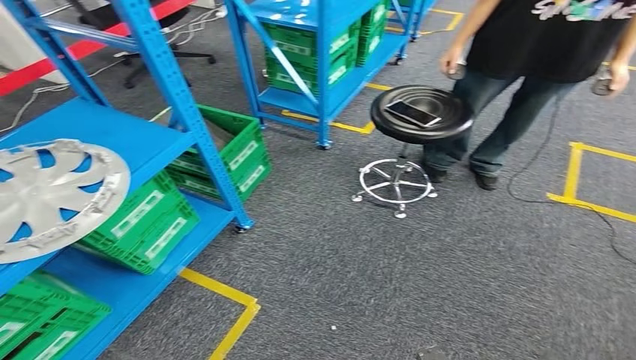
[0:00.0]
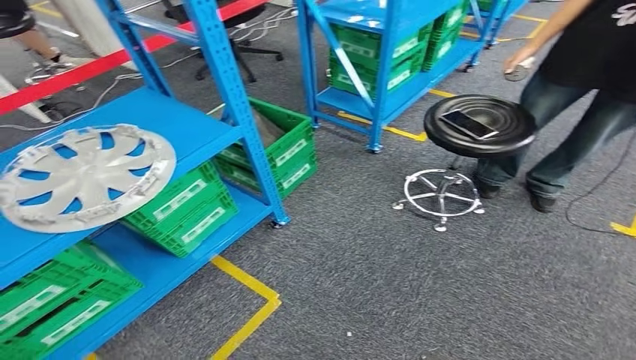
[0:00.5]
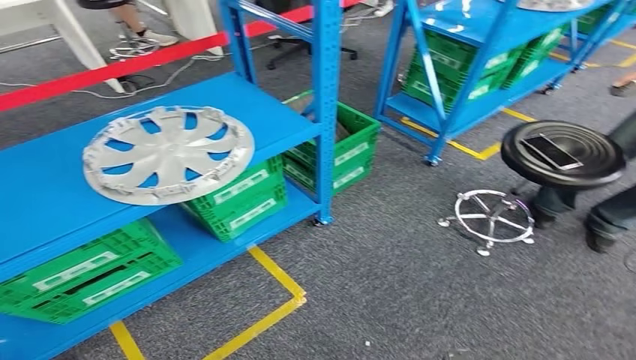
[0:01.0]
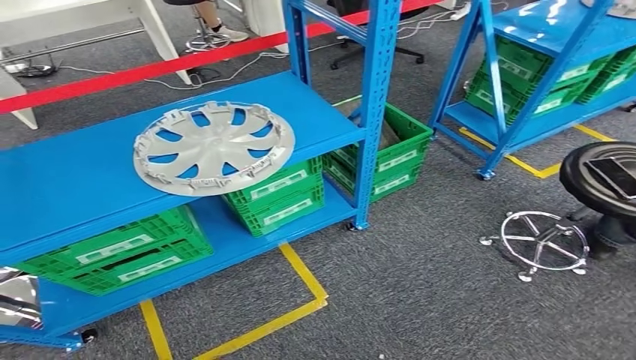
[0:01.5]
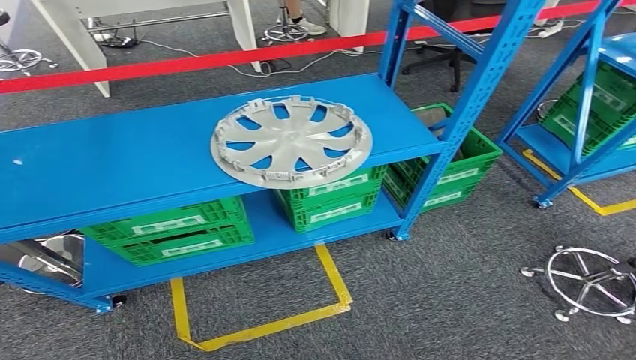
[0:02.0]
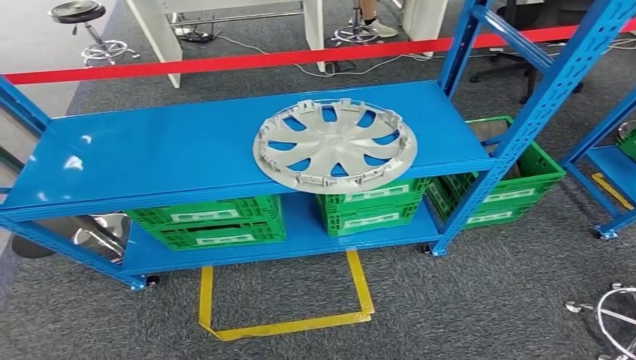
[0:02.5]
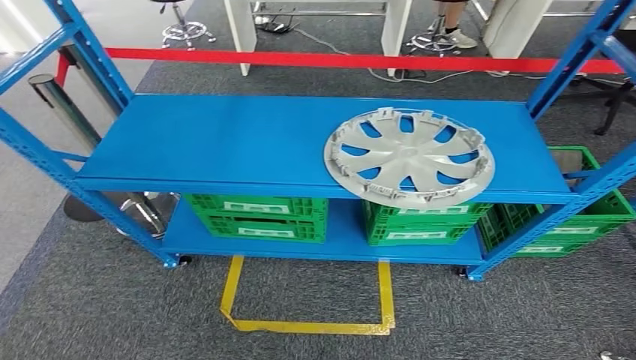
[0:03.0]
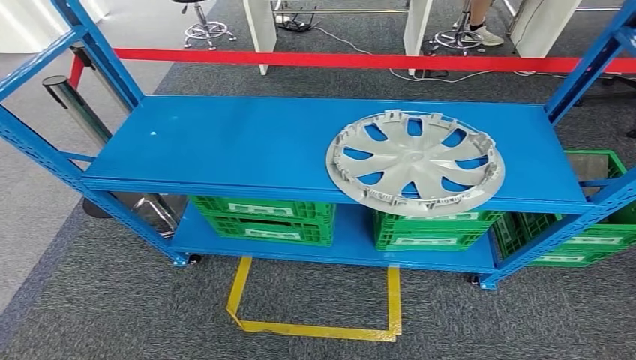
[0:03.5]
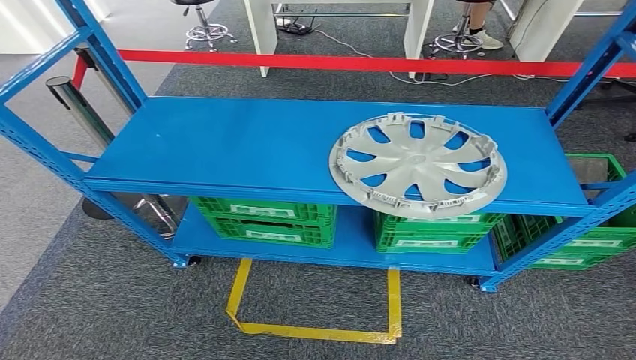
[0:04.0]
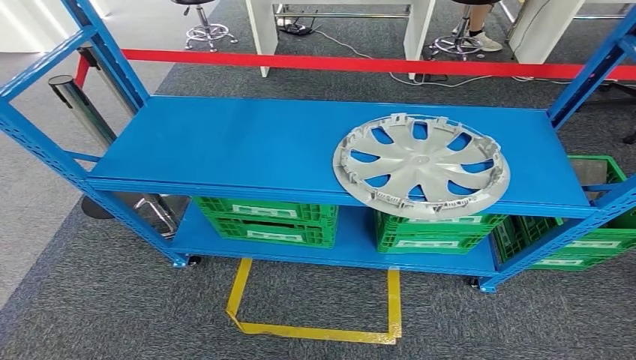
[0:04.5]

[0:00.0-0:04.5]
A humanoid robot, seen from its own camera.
Step, 0:00.0 to 0:04.5: Move to the initial position at the workbench.

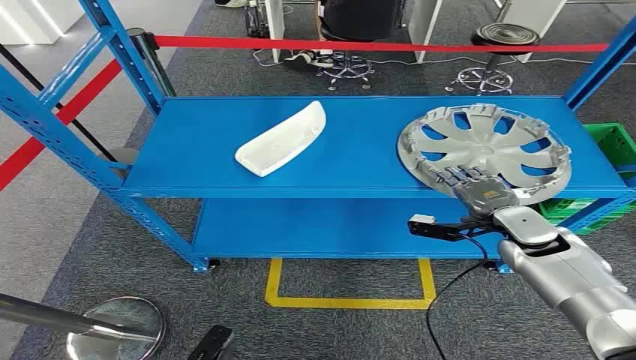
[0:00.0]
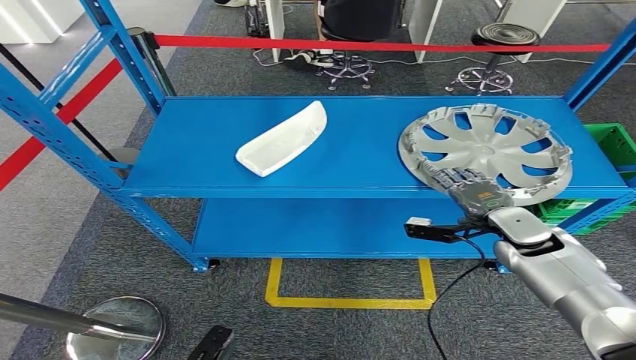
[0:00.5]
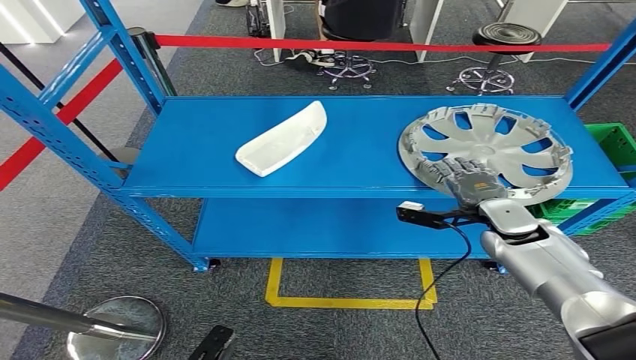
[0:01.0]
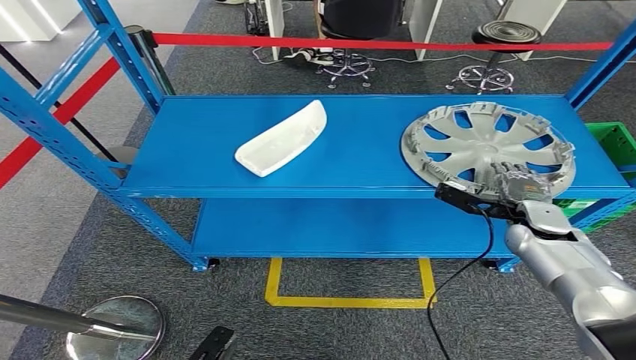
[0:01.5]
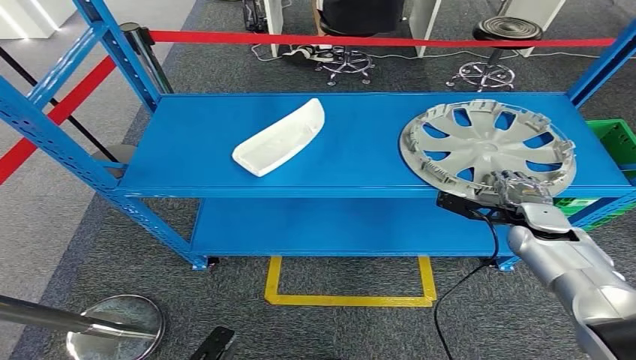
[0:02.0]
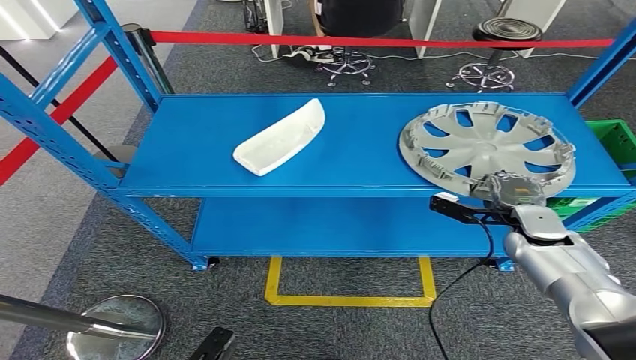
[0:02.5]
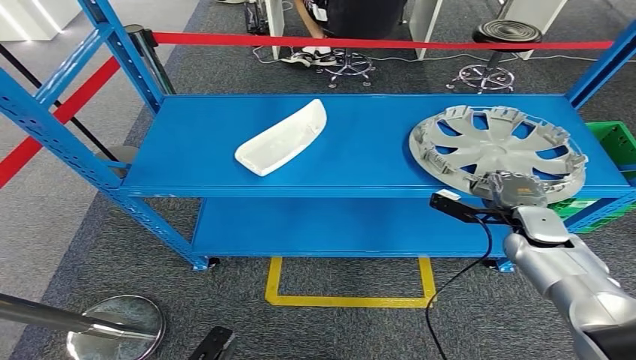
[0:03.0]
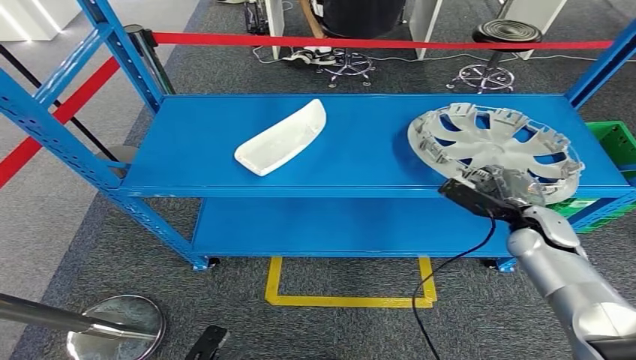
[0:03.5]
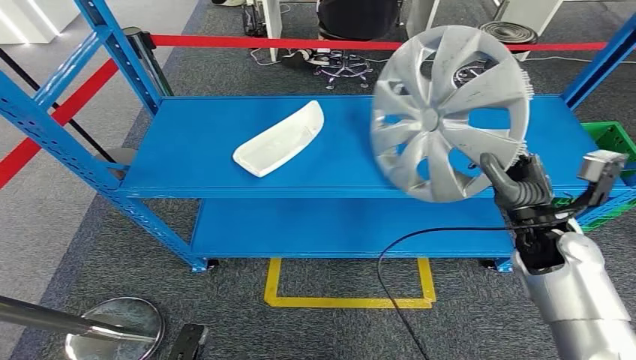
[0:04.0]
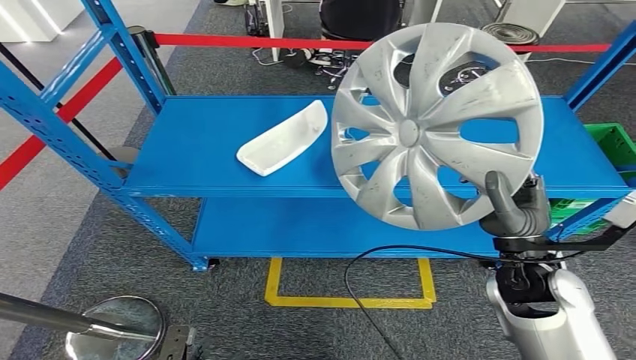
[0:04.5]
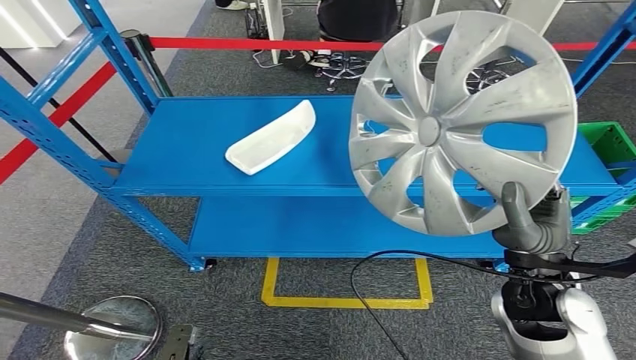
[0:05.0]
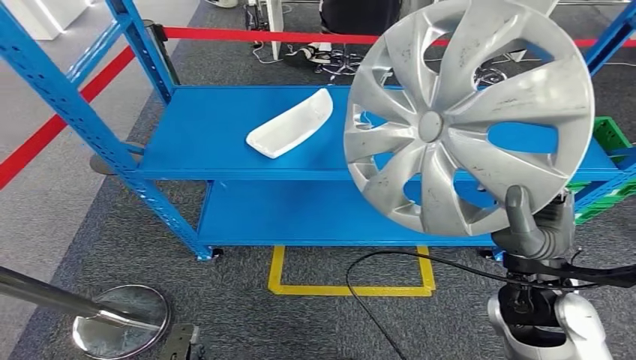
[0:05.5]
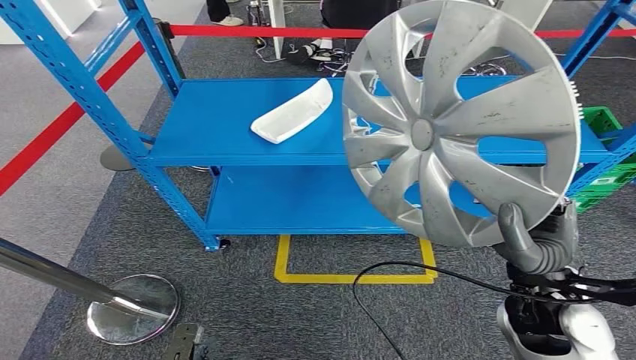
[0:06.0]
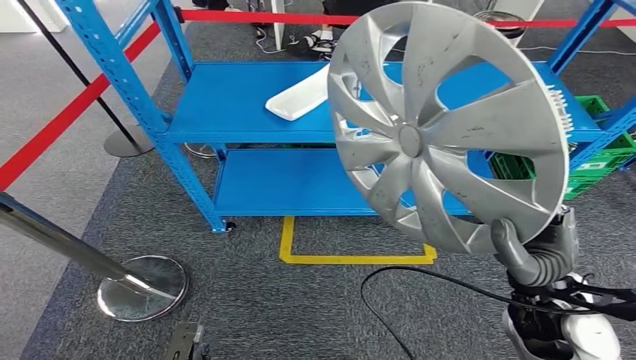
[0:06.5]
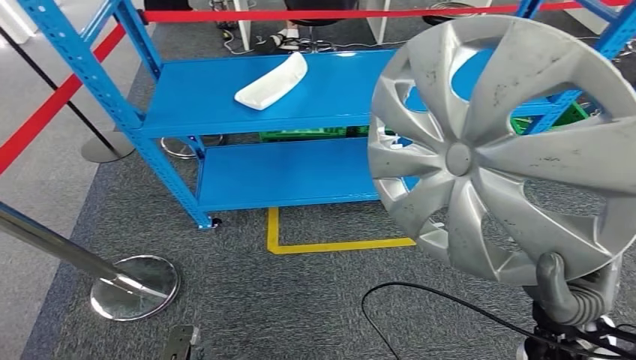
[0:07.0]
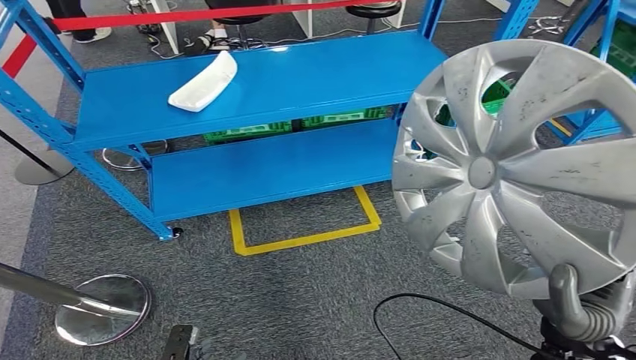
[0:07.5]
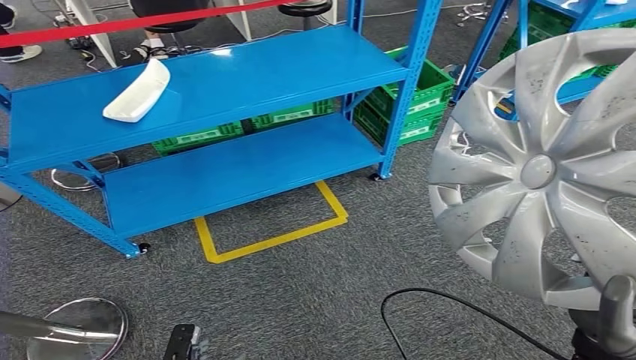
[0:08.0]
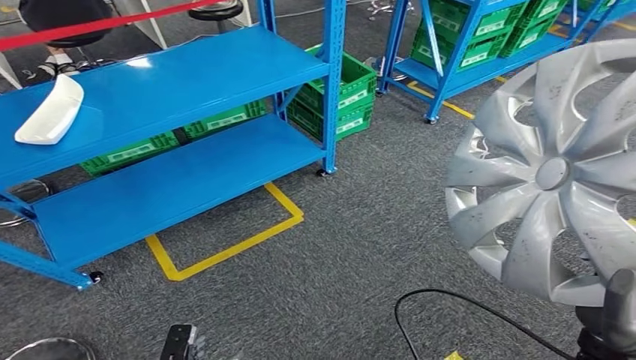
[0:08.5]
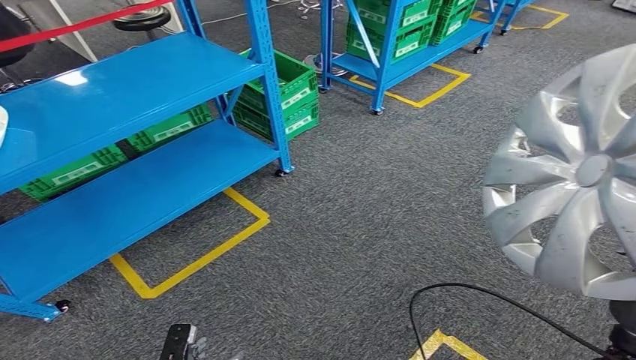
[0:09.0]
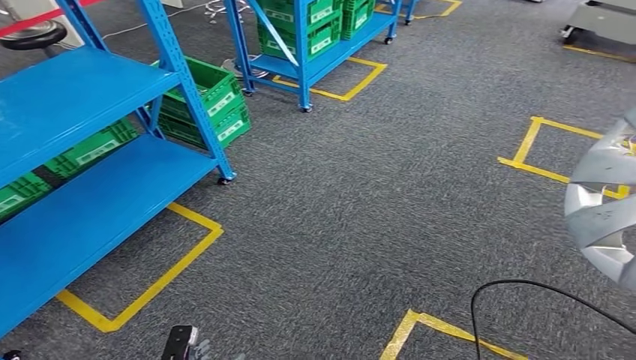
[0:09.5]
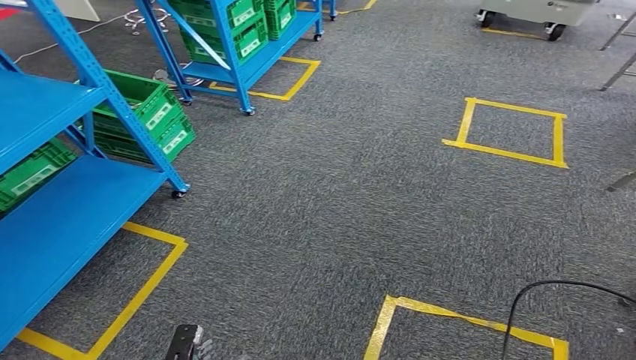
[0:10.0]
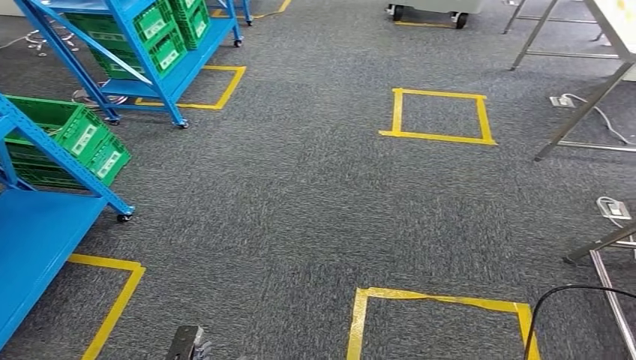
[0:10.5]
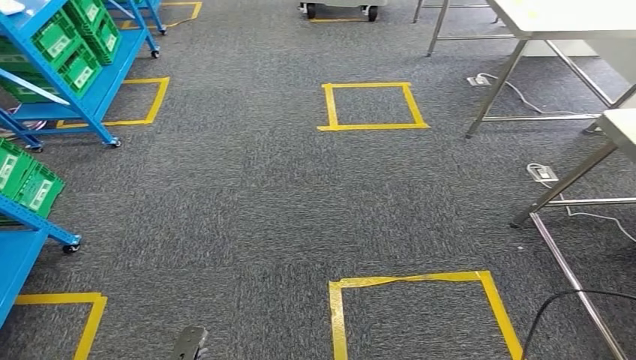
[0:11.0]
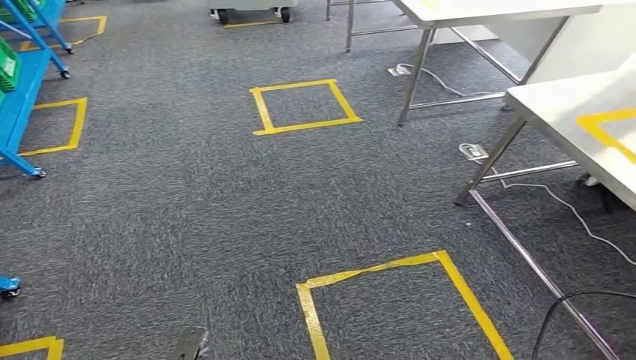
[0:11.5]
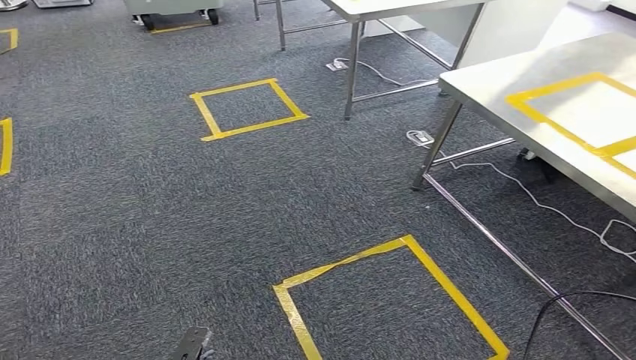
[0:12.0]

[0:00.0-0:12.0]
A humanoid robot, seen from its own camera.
Step, 0:00.0 to 0:05.5: Pick up the small parts from the shelf.

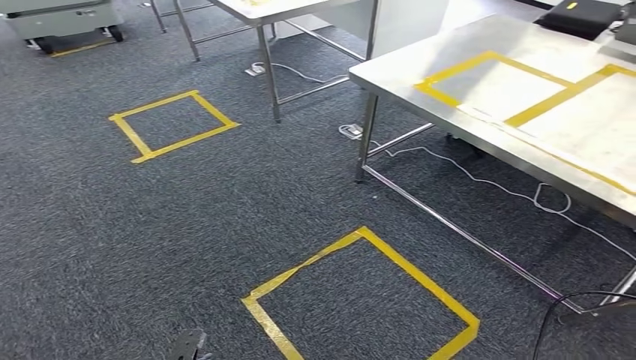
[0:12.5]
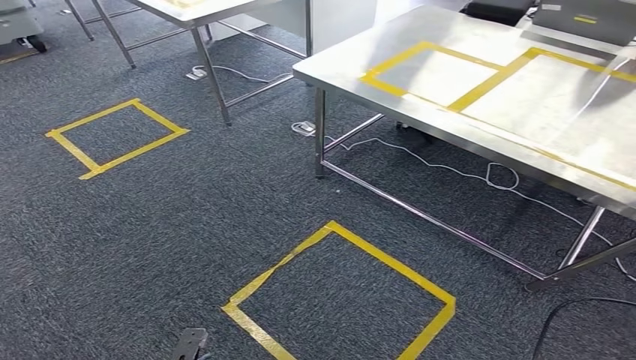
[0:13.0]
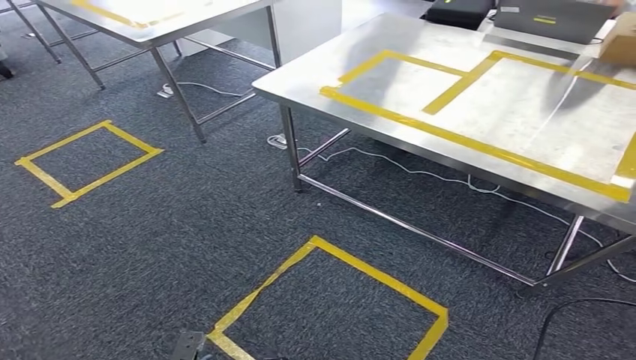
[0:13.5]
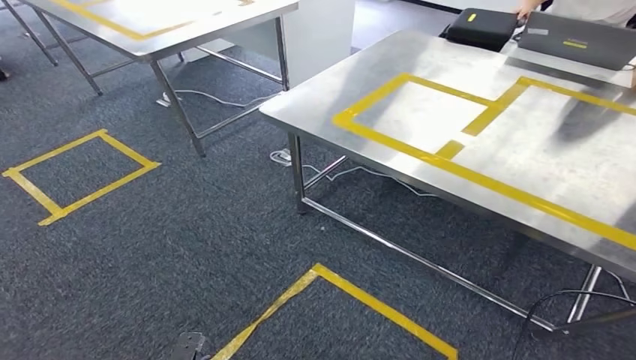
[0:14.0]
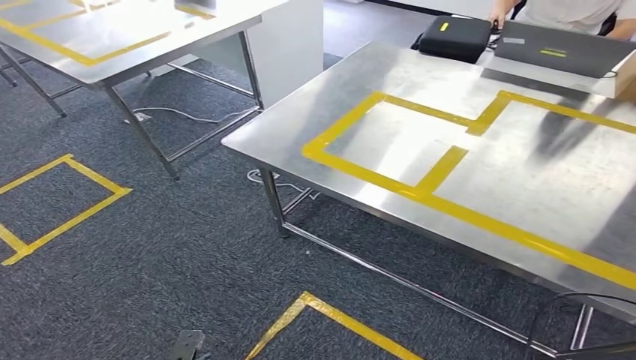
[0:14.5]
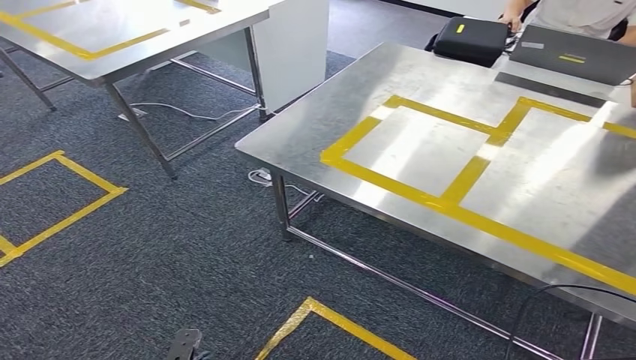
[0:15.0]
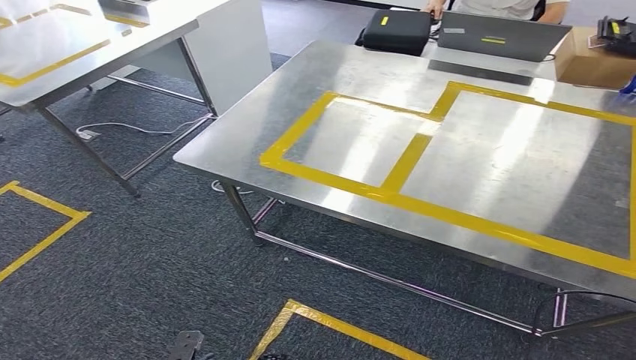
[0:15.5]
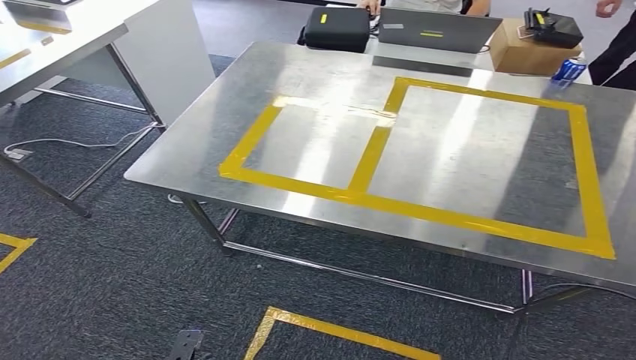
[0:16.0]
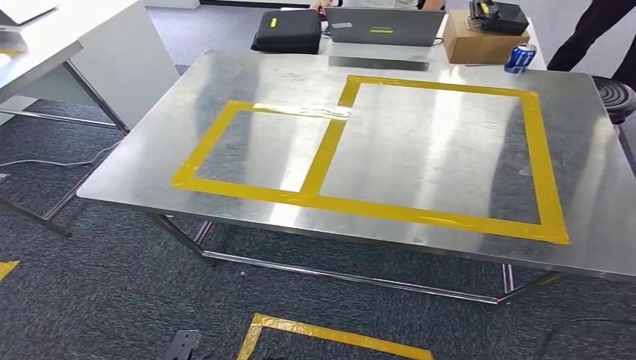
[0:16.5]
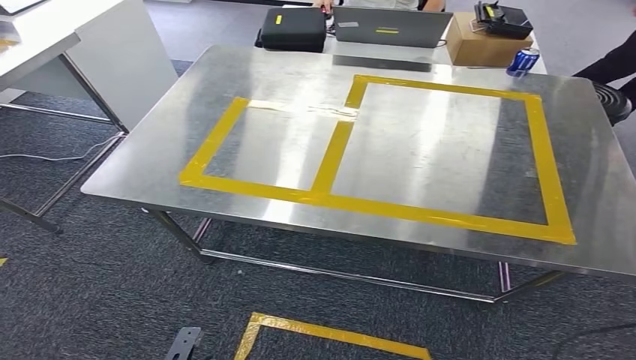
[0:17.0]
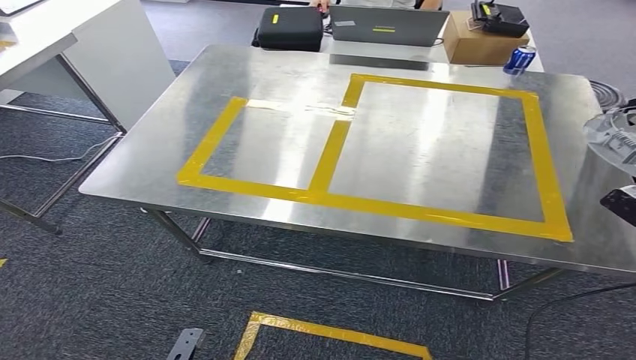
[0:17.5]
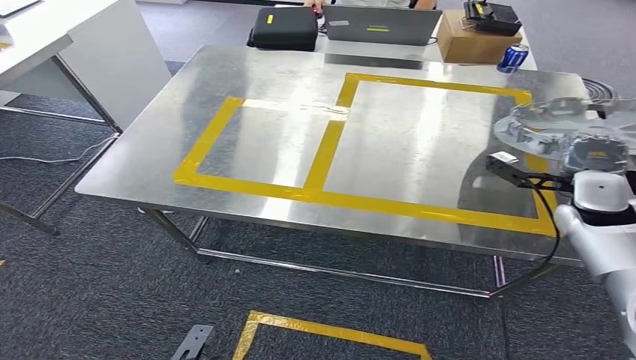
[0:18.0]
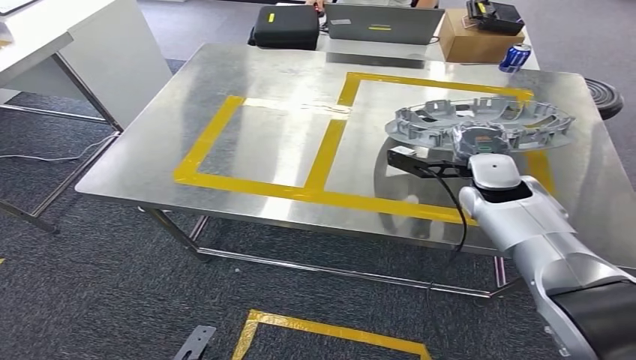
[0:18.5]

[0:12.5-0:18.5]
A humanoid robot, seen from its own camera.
Step, 0:12.5 to 0:14.5: Move the small parts to the workbench.
